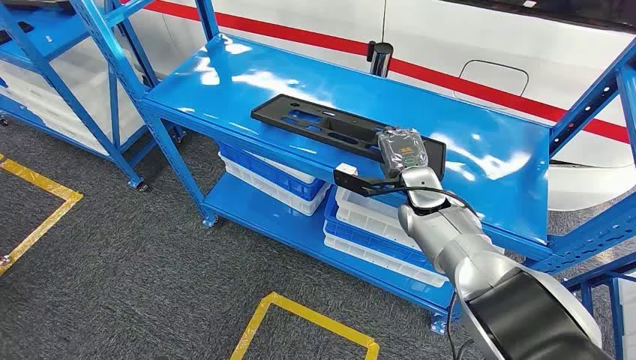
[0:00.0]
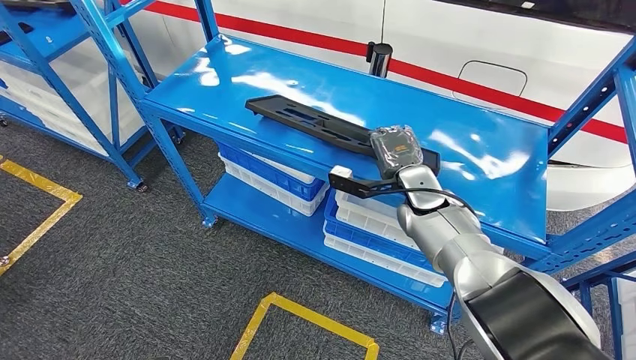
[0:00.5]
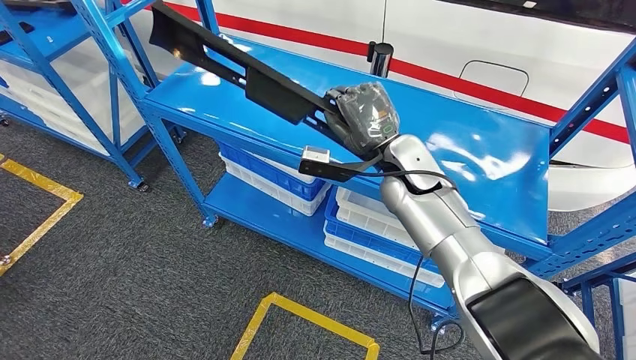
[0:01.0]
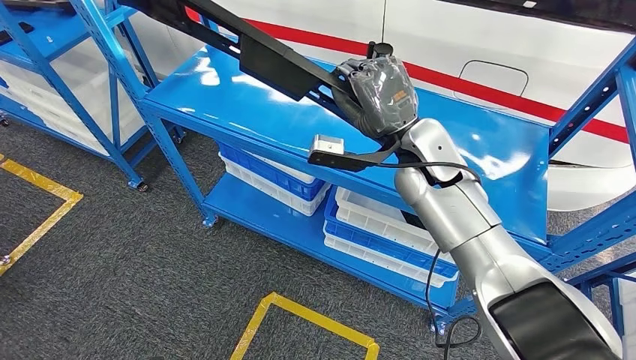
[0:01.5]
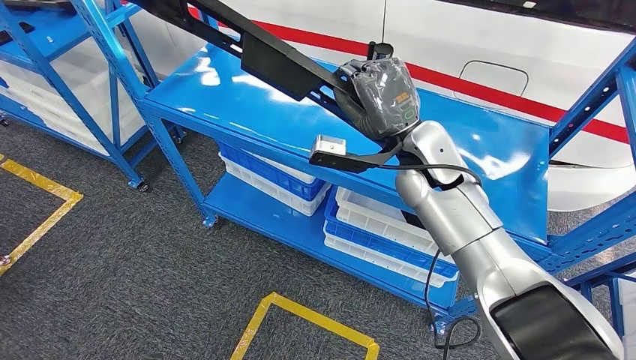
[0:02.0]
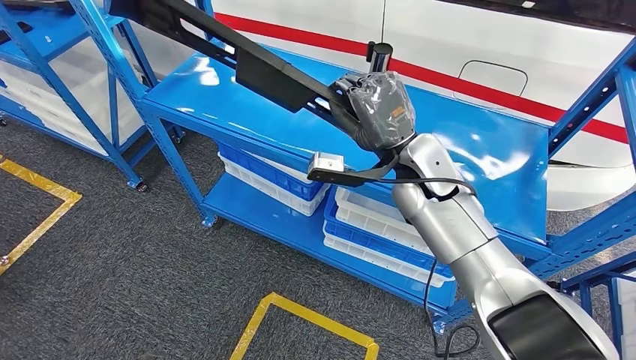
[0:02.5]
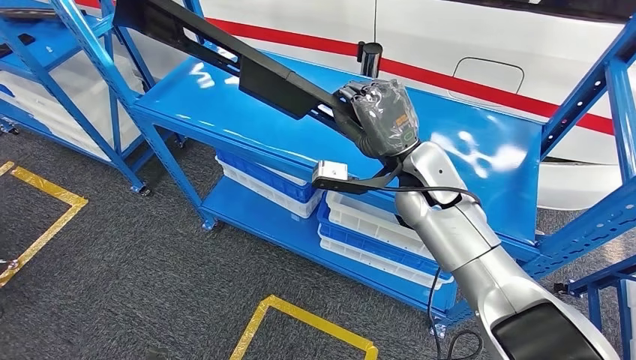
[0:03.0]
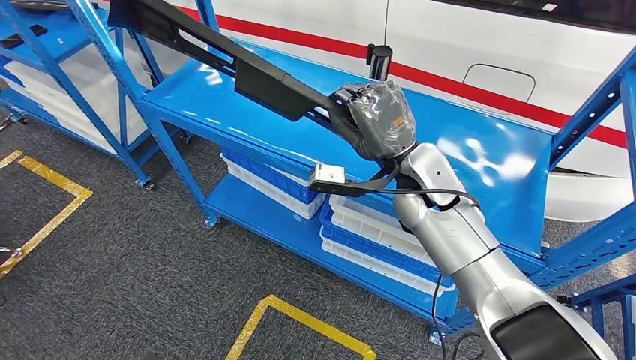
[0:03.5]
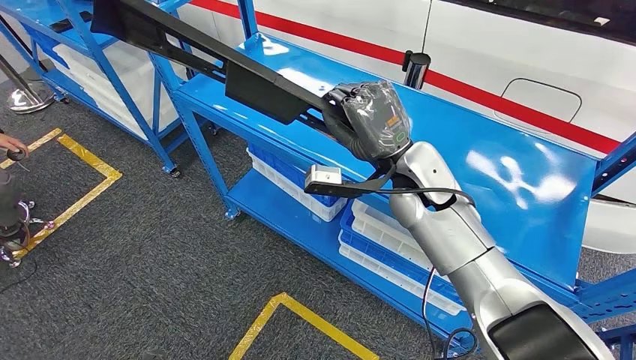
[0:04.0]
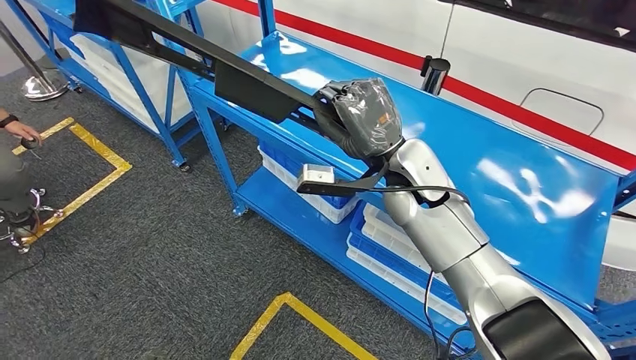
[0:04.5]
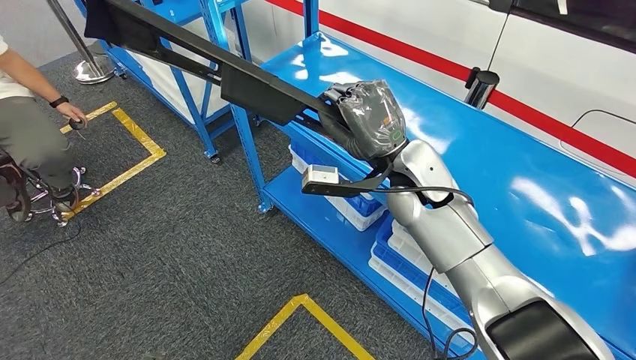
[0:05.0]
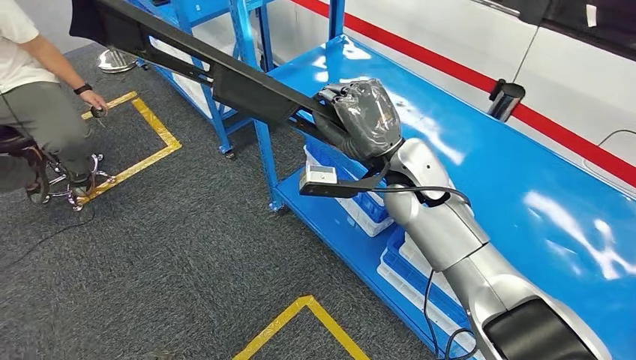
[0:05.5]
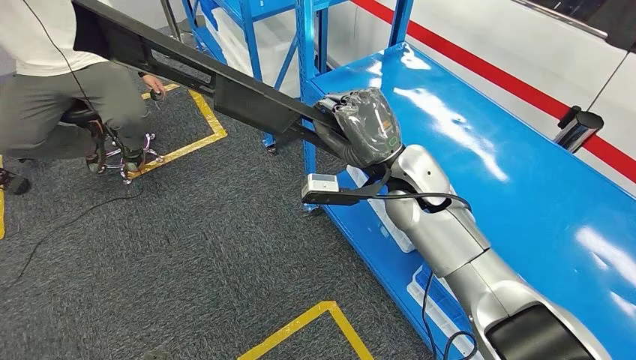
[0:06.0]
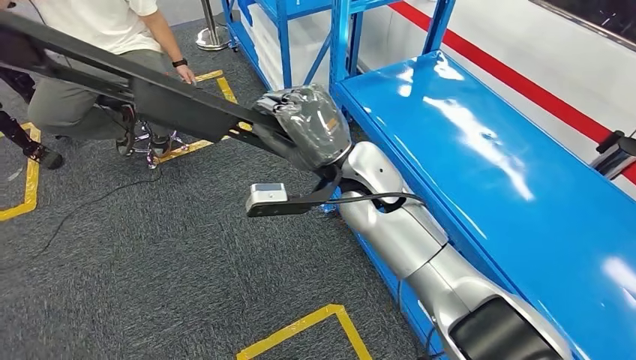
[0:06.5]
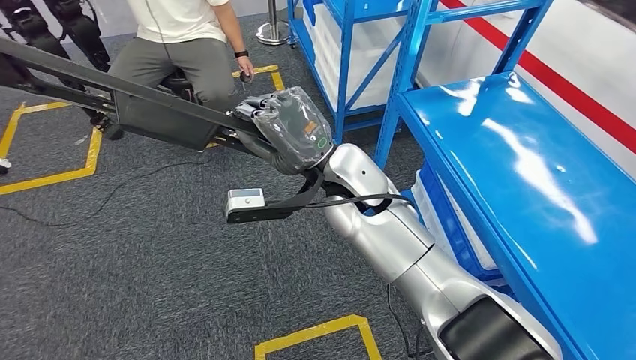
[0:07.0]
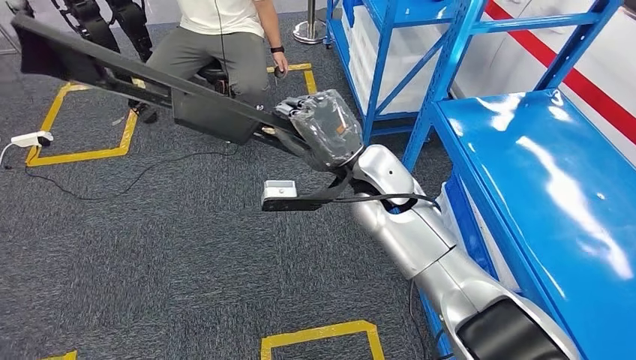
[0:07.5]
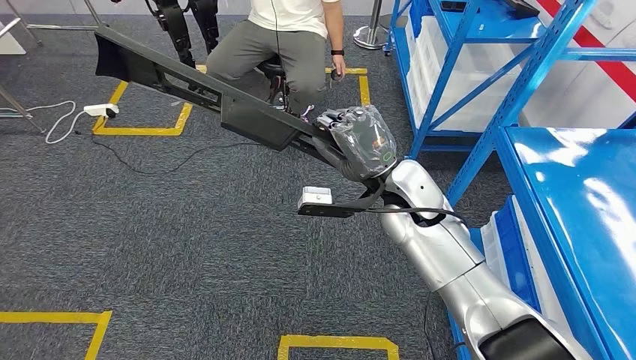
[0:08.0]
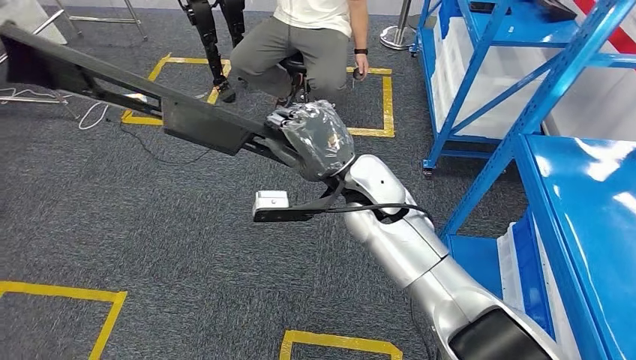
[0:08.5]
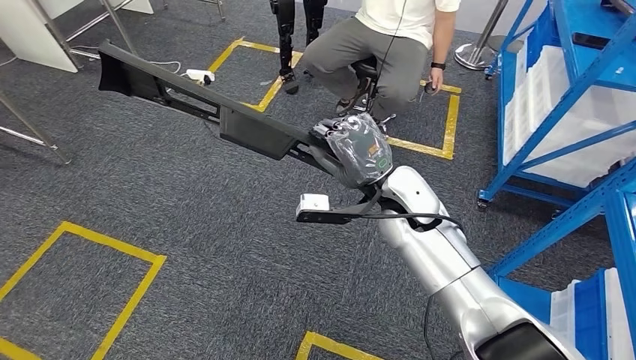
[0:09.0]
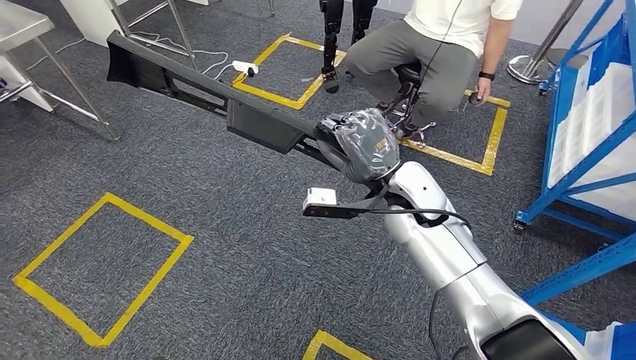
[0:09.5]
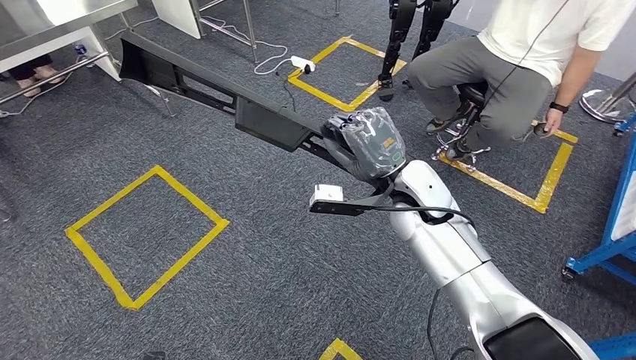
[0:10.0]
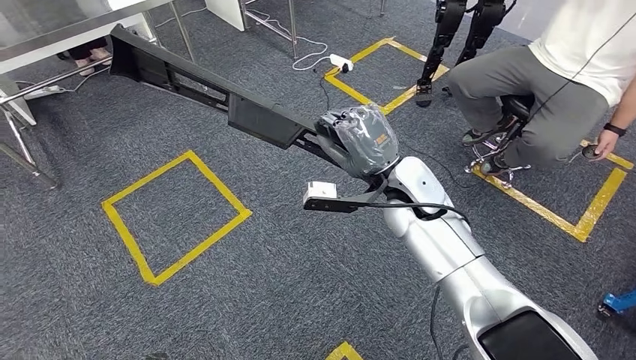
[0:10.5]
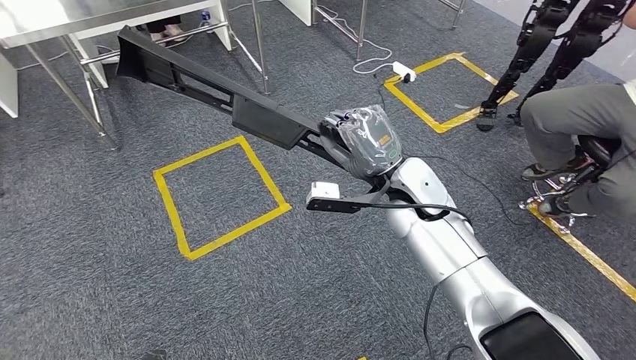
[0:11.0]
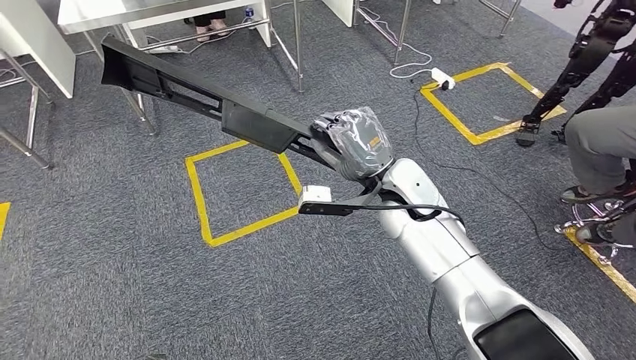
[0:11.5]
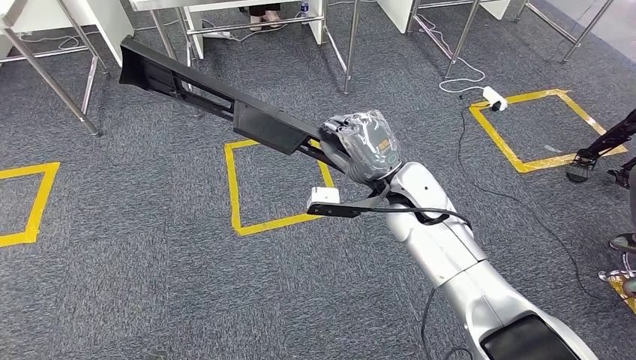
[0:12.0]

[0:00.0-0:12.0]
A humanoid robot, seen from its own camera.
Step, 0.0 to 4.5 s: Pick up the large material from the shelf.

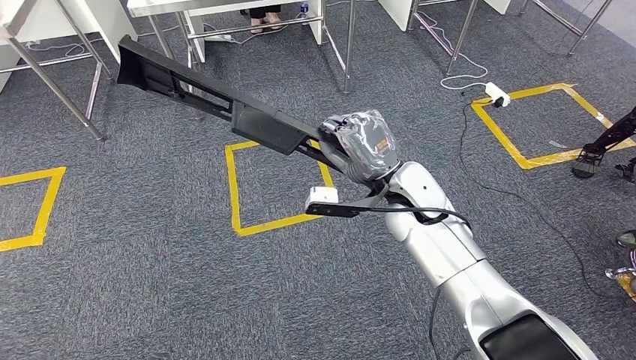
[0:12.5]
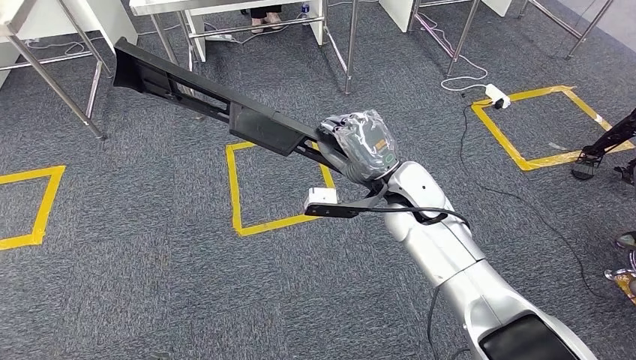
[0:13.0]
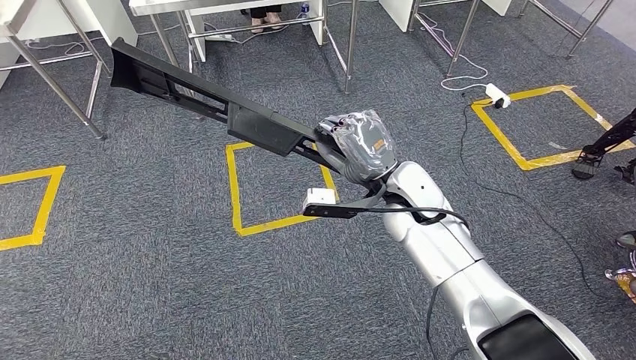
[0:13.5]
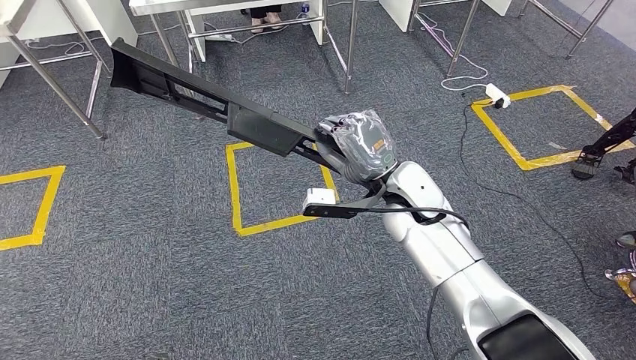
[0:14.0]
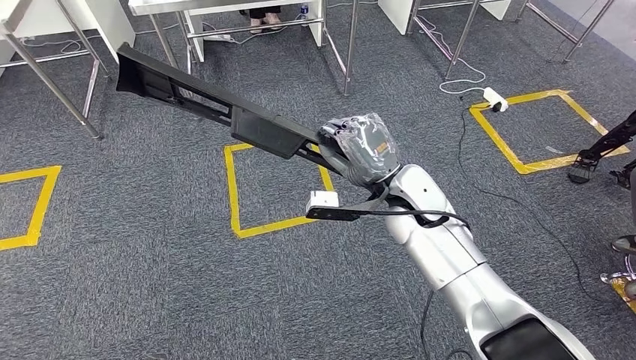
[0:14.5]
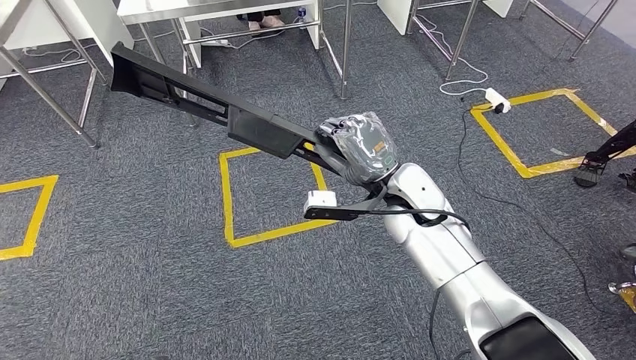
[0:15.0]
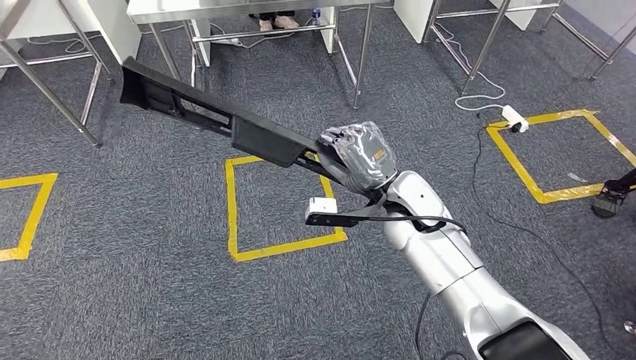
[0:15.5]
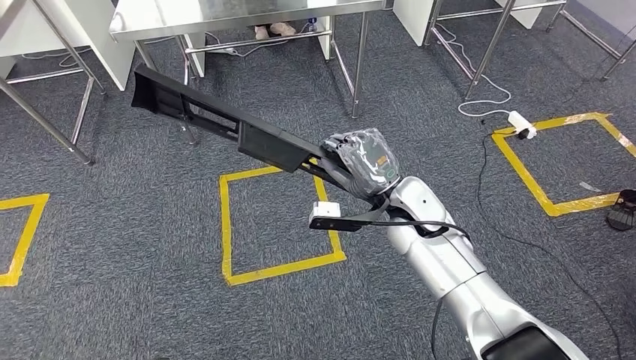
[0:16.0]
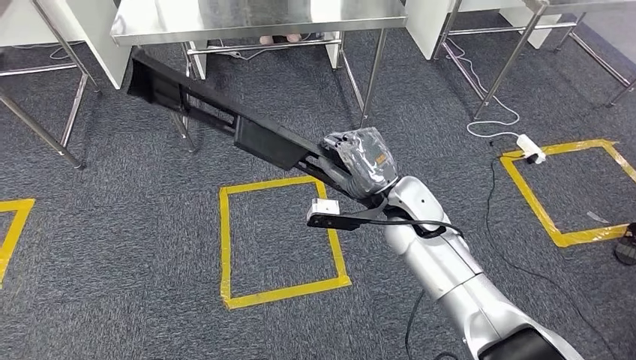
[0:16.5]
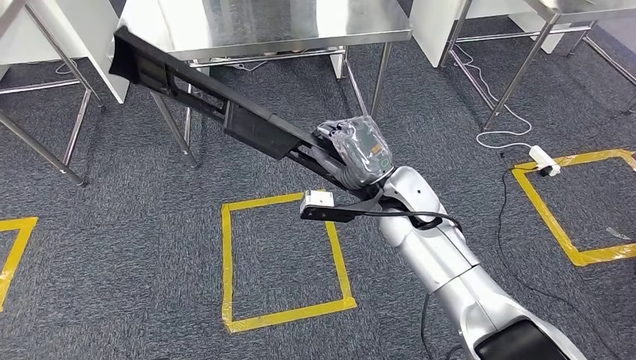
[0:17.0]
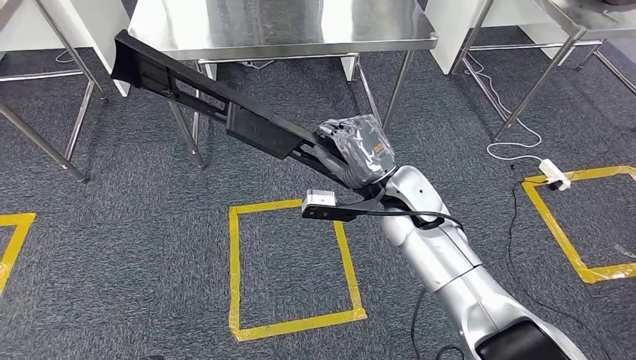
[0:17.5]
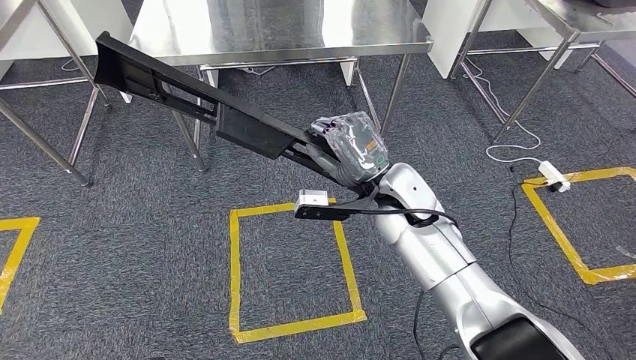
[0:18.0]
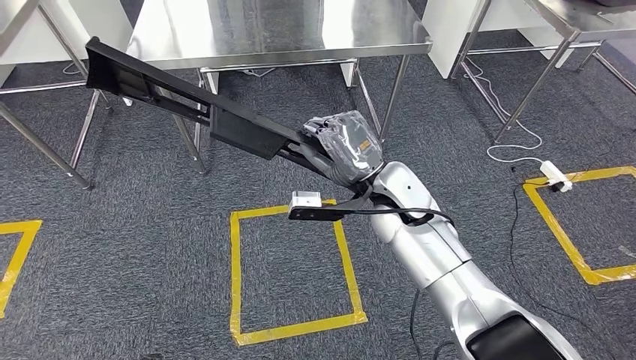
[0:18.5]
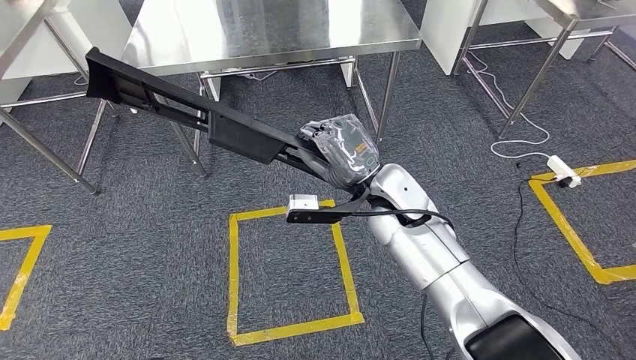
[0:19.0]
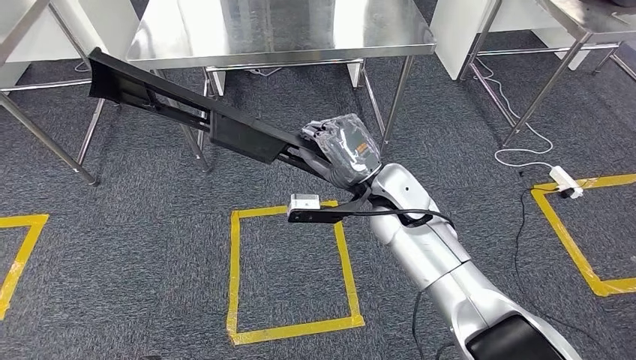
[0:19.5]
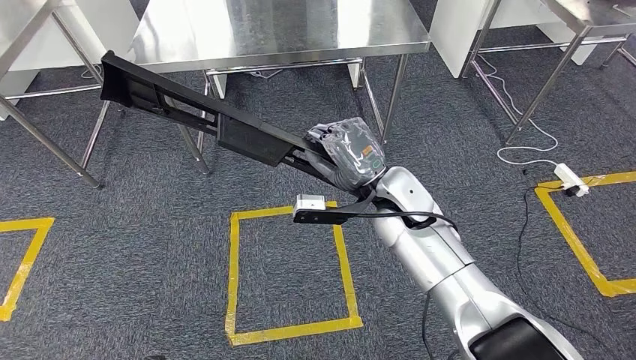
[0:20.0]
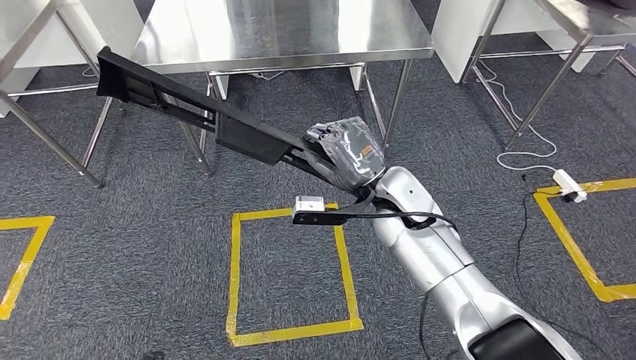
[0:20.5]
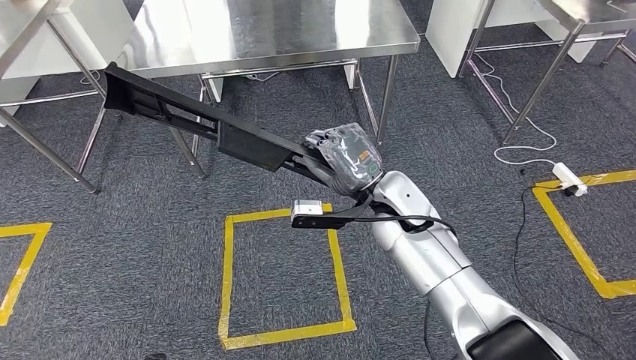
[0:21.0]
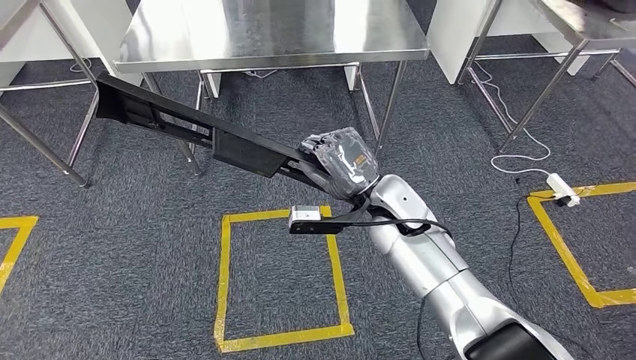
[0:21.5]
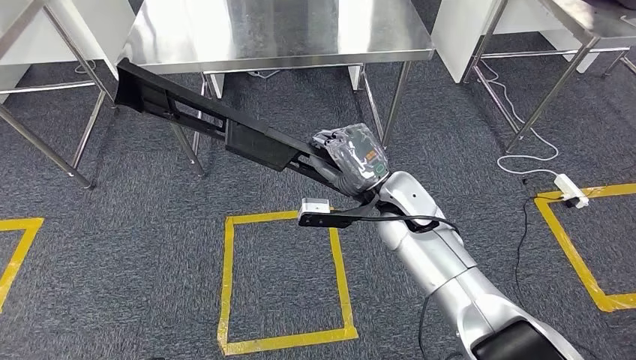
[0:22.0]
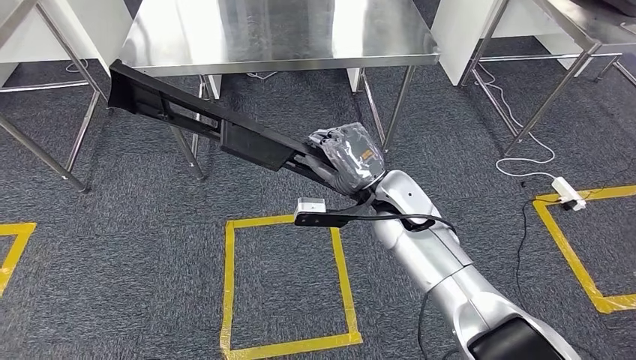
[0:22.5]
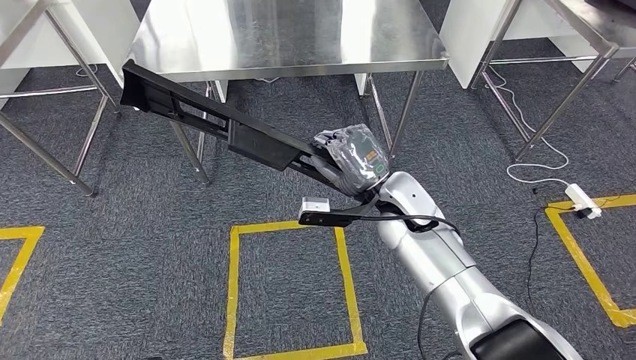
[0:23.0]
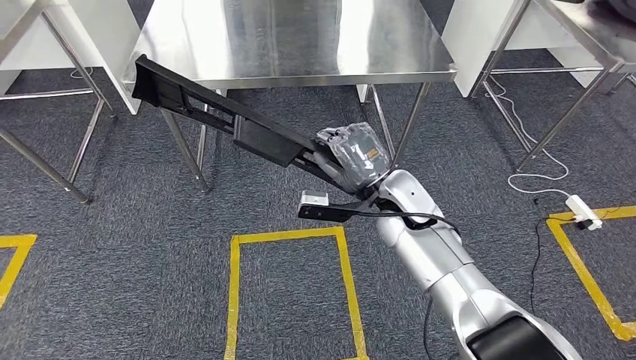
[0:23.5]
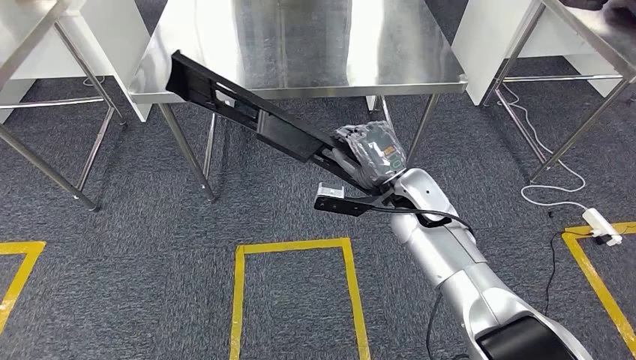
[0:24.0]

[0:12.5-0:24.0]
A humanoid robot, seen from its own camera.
Step, 12.5 to 16.5 s: Move the large material to the workbench.
12.5 to 14.5 s: Both hands stay about where they are.
20.0 to 22.0 s: Both hands stay put.
